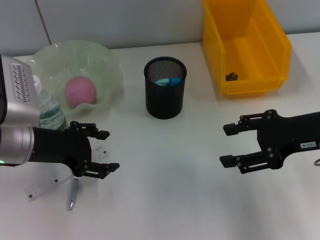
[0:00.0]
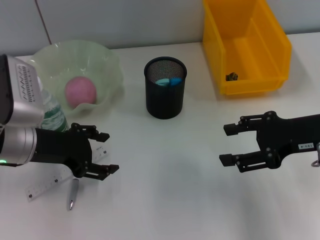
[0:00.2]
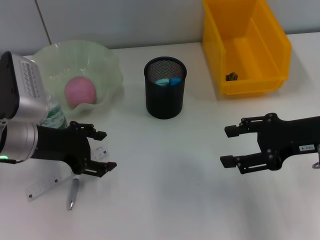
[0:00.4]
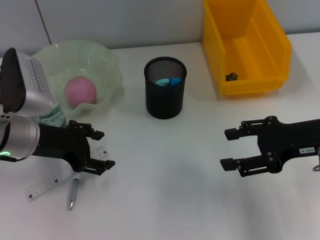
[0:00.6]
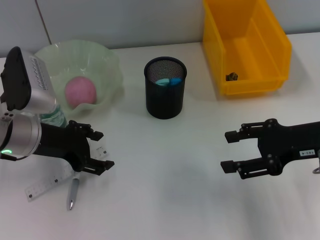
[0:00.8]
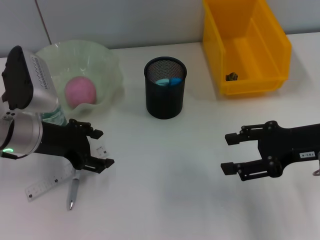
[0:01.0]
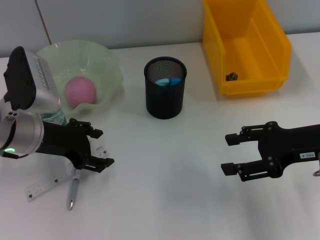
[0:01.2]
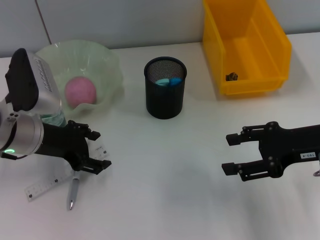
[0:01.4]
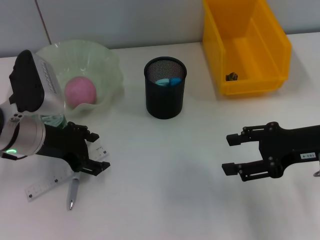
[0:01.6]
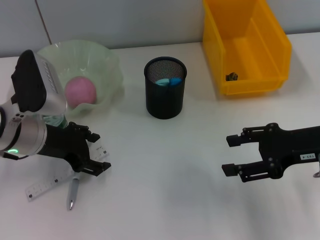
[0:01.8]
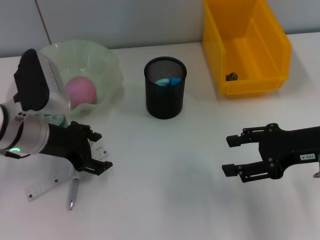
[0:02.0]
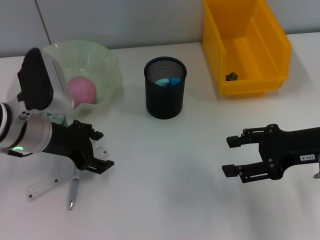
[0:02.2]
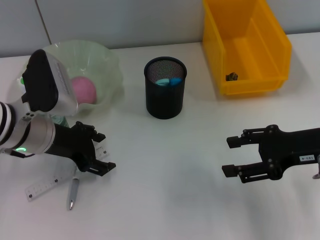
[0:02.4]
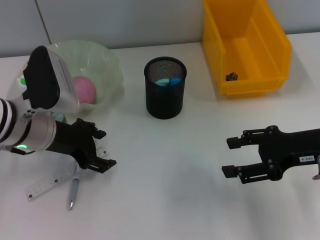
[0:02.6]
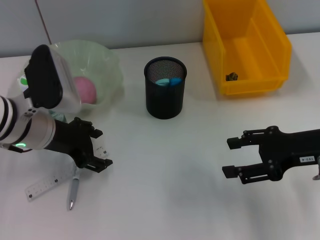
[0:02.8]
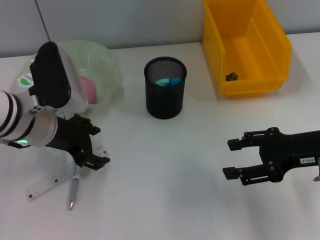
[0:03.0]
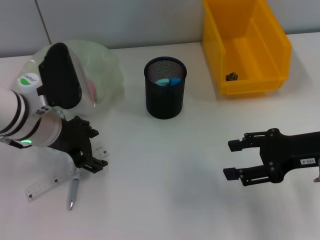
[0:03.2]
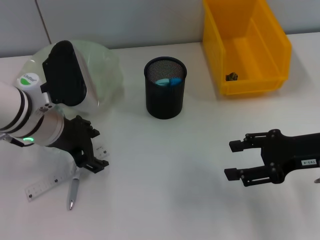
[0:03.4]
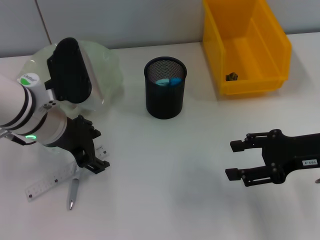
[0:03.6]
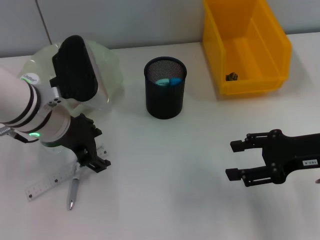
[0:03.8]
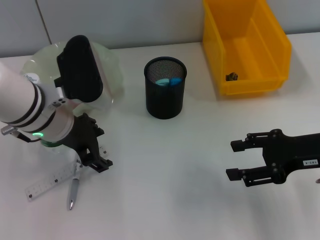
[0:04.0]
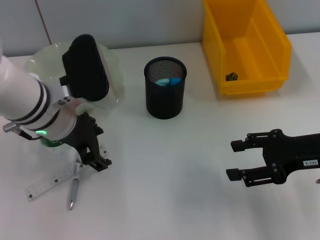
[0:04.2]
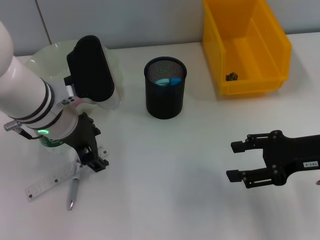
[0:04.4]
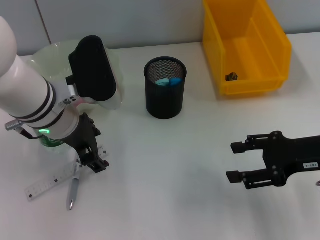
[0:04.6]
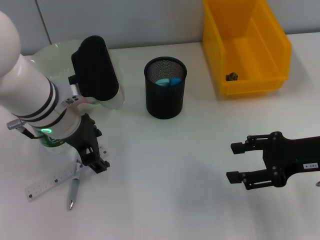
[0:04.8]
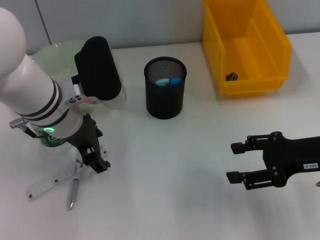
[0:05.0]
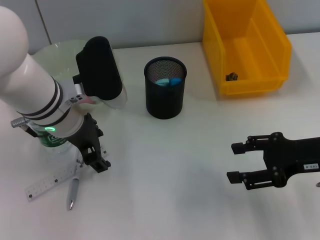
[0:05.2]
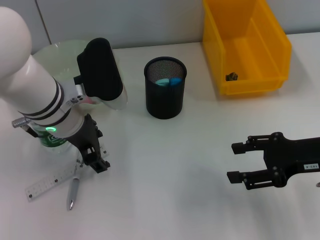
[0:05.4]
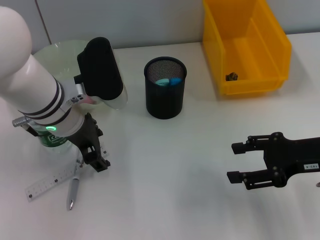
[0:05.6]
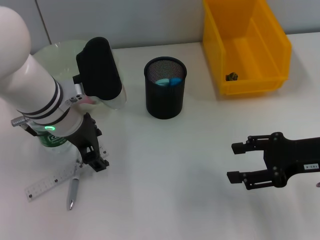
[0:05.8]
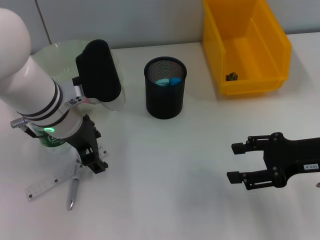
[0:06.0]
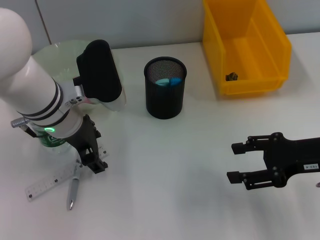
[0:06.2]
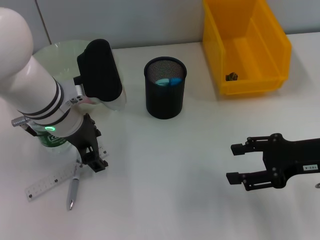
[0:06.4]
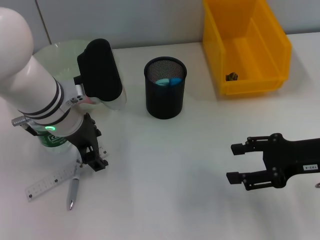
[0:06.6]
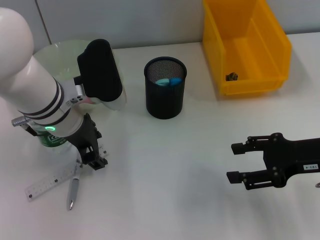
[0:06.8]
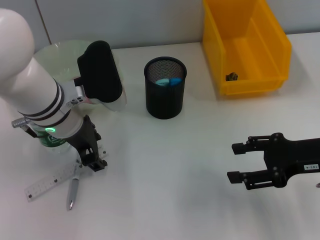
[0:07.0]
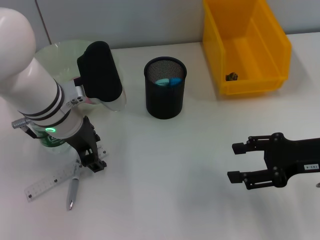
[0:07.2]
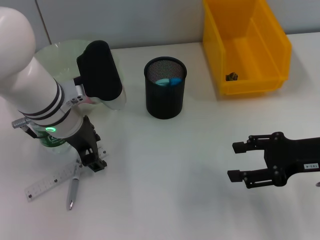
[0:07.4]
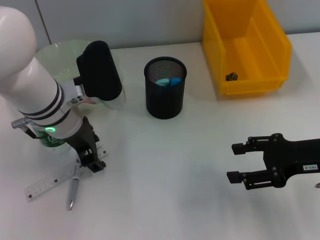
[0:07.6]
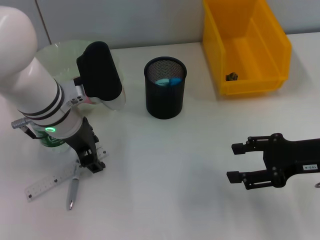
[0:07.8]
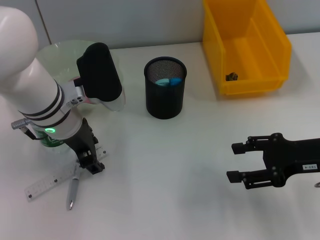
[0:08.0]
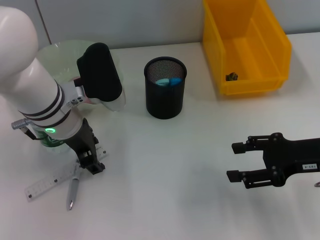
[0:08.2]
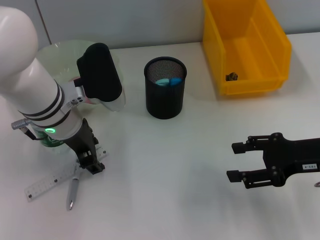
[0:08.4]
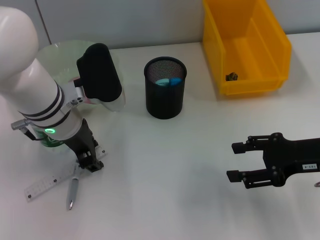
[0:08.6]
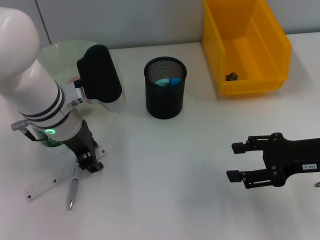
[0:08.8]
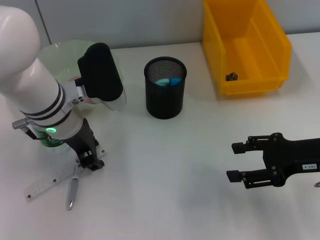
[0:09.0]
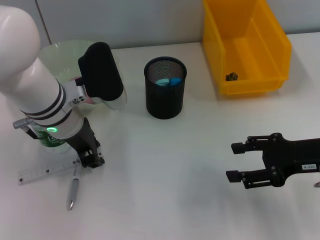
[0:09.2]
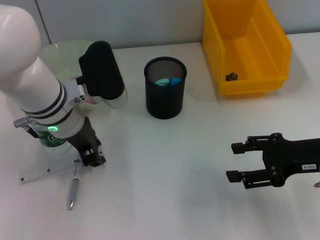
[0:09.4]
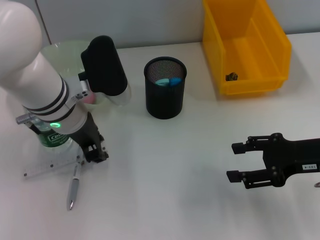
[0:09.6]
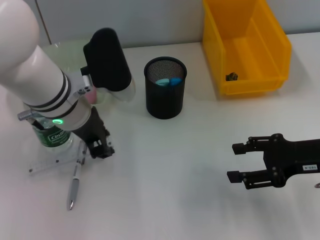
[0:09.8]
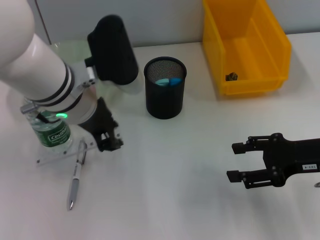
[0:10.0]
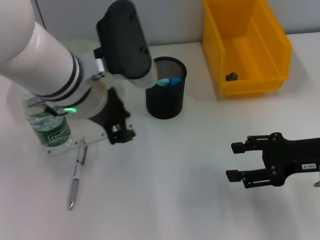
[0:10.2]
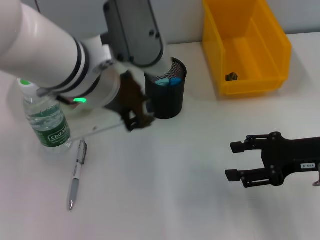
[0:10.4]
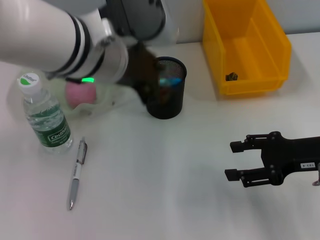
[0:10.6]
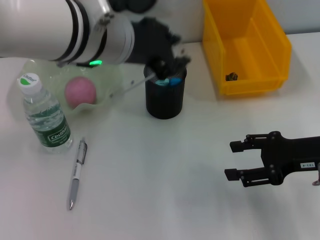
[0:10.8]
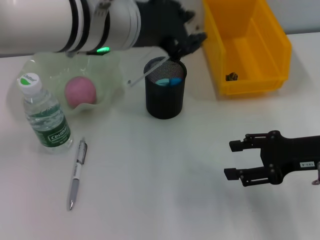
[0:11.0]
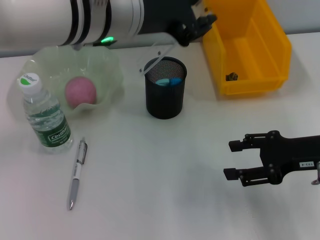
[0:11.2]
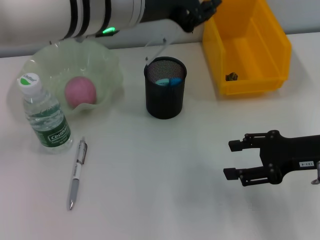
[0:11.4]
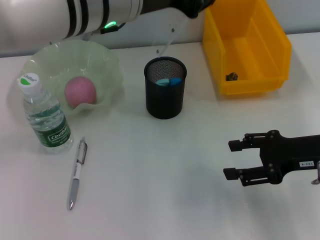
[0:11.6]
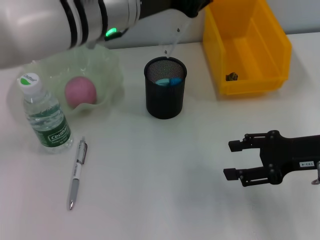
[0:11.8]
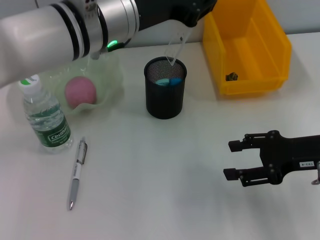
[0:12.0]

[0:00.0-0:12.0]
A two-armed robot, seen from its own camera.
Step, 0:00.0 to 0:09.0: Grab the ruler with the left hand.
0:00.0 to 0:01.6: There are only small adjustments of the grippers.
0:01.6 to 0:03.0: The grippers stay close to where they were, moving slightly.
0:03.0 to 0:06.0: The grippers stay close to where they were, moving slightly.
0:06.0 to 0:09.0: The two grippers keep their place.
0:09.0 to 0:10.4: The left gripper moves upward and to the right, about 10 cm.

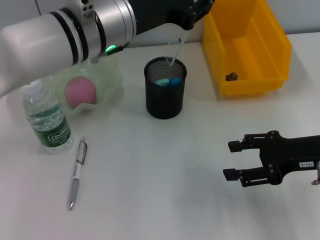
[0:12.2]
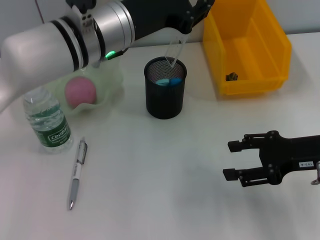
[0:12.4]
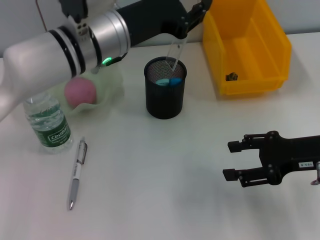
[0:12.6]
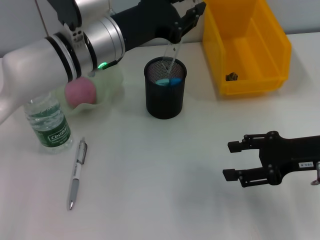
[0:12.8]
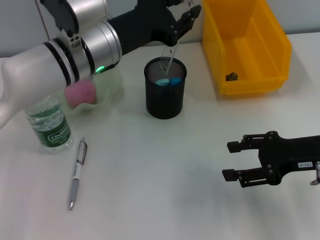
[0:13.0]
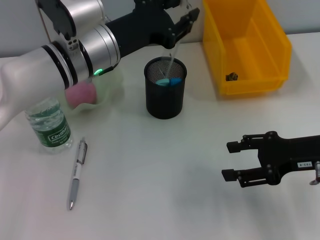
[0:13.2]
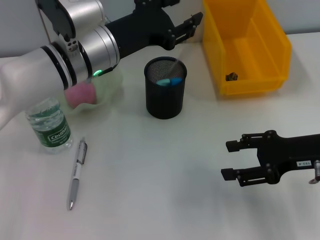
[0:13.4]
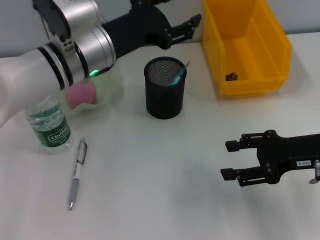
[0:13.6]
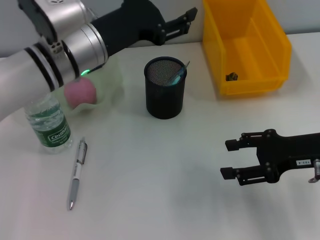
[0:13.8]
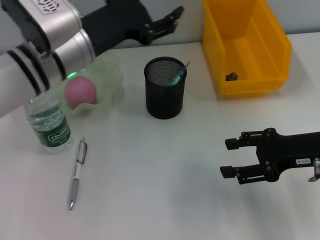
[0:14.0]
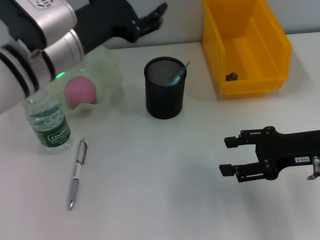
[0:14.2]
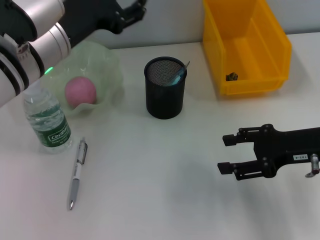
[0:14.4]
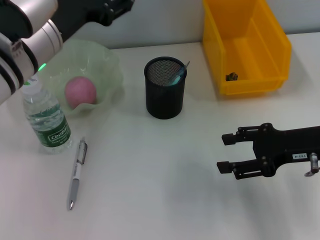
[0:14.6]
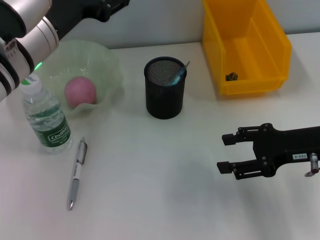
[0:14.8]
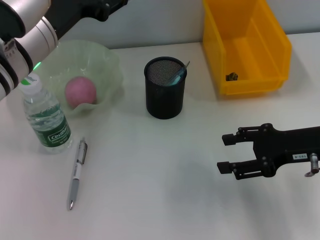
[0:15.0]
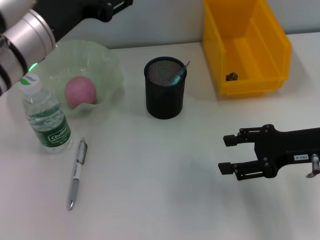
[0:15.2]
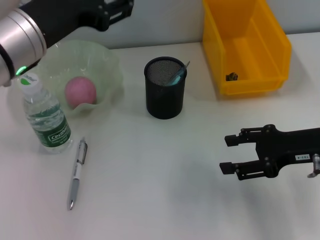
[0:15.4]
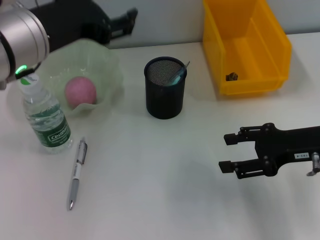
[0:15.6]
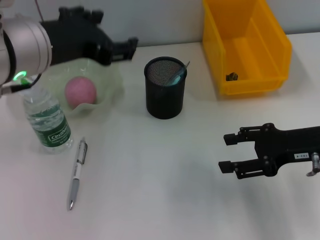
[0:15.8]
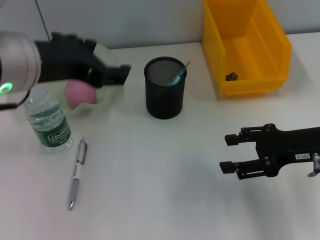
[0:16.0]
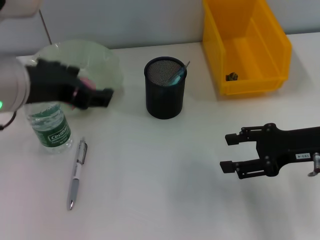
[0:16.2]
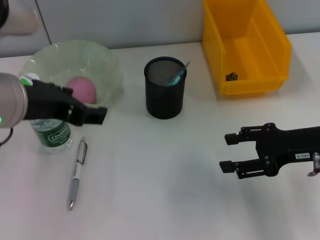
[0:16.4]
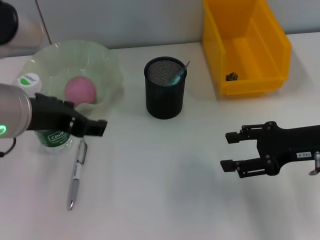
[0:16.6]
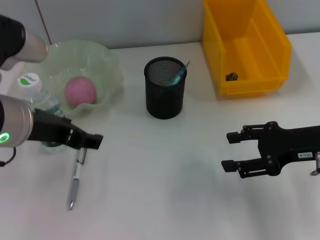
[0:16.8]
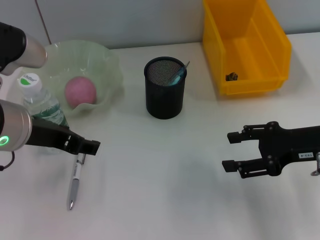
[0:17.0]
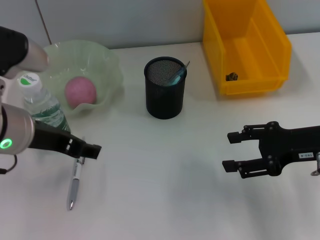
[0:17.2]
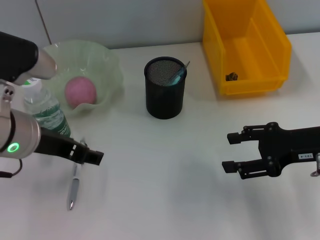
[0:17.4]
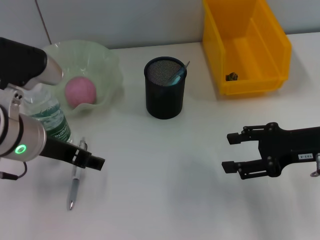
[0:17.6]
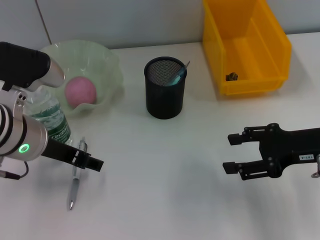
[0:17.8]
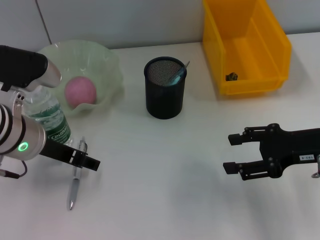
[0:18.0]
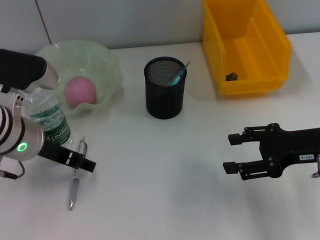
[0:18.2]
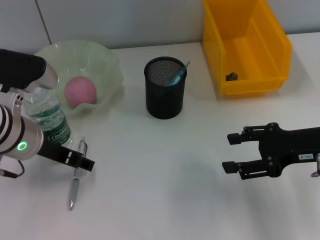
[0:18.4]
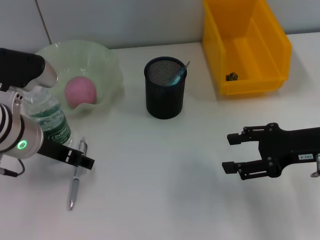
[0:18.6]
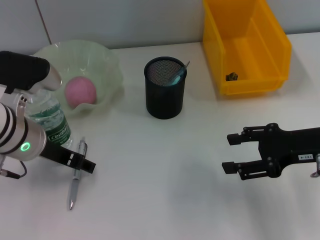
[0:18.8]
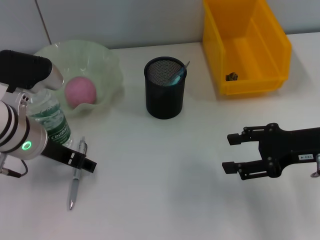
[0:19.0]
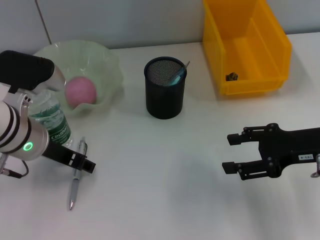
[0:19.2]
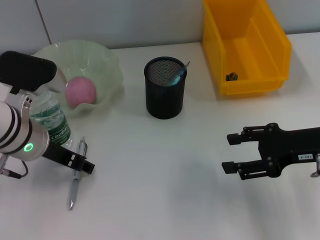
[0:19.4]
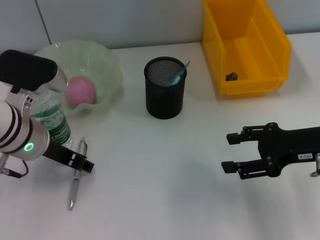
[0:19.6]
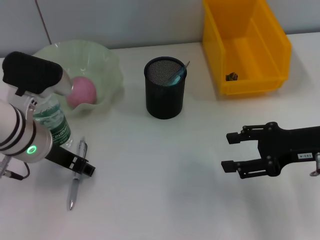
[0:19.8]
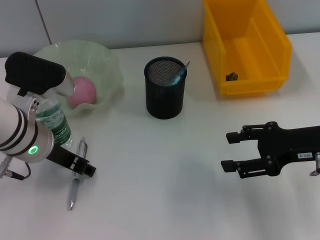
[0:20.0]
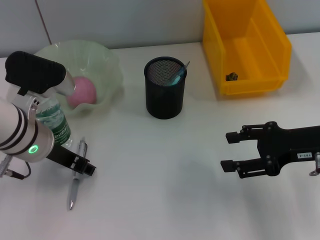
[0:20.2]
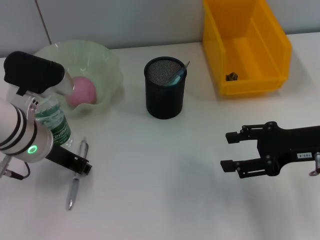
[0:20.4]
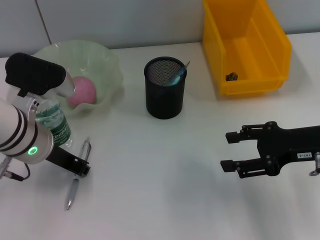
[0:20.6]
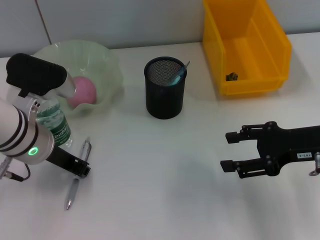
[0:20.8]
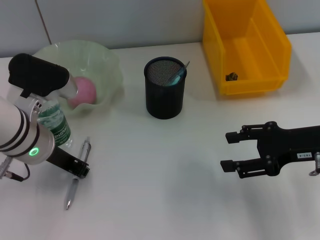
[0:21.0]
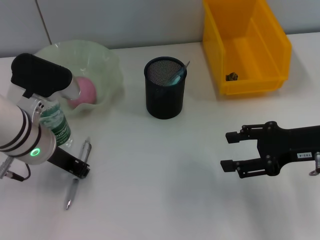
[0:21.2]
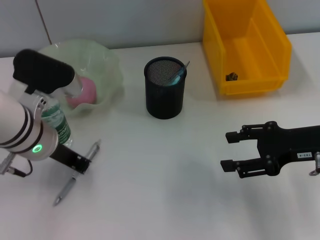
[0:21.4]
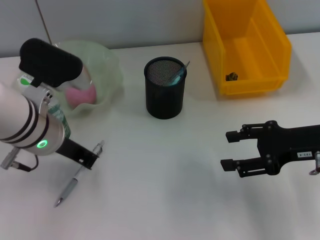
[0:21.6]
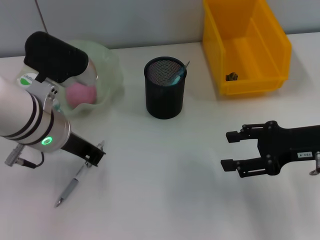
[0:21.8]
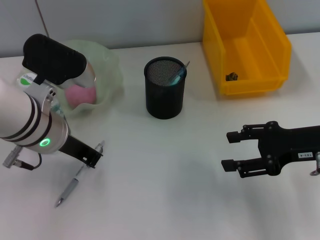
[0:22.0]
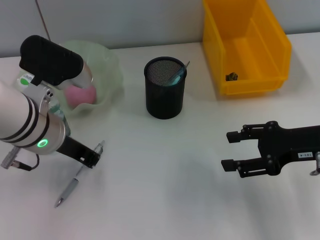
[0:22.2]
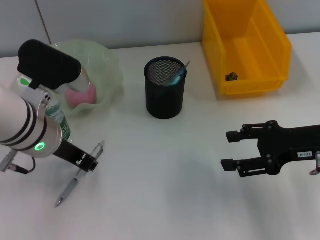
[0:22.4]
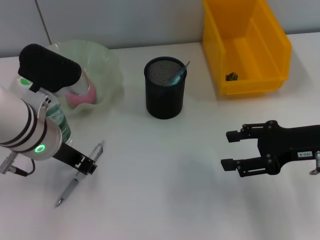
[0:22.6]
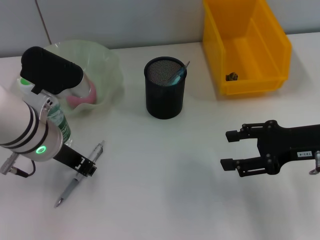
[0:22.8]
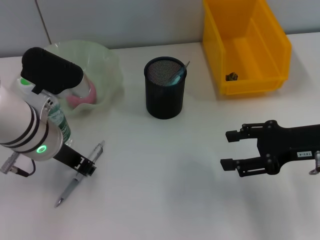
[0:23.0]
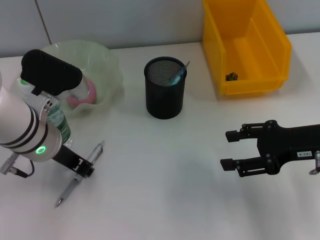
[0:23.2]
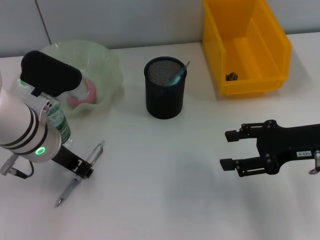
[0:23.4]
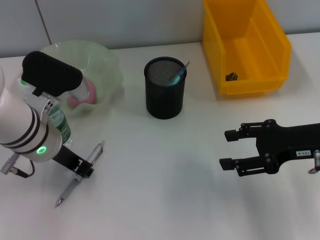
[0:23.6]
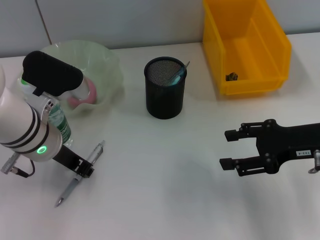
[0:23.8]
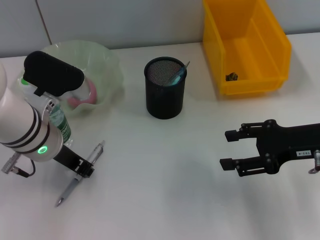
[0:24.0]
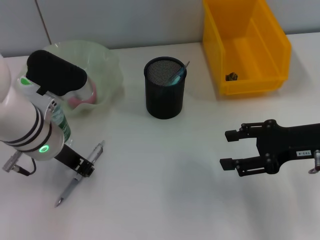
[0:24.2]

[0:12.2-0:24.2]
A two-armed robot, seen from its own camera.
0:12.2 to 0:13.8: The left gripper changes place by some 5 cm, and opens up.
0:13.8 to 0:15.2: The left gripper travels backward and upward by roughly 10 cm.
0:15.2 to 0:16.6: The left gripper changes place by approximately 5 cm.
0:16.6 to 0:18.2: The left gripper heads downward, covering some 10 cm.
0:18.2 to 0:19.8: The grippers move only a little.
0:19.8 to 0:21.2: The left gripper closes up.
0:21.2 to 0:24.2: There are only small adjustments of the grippers.
